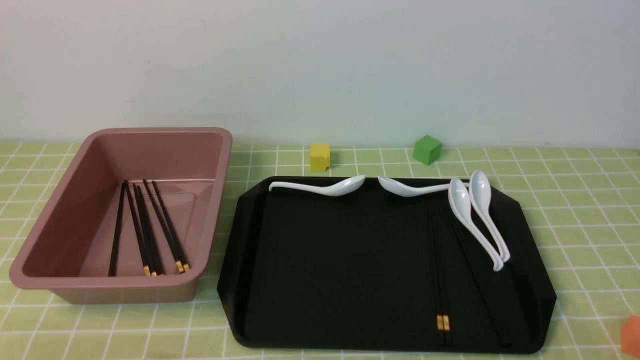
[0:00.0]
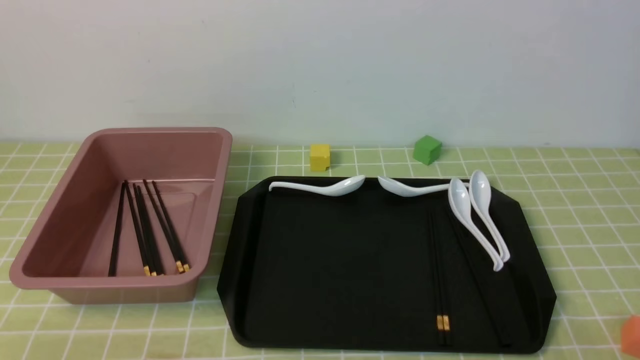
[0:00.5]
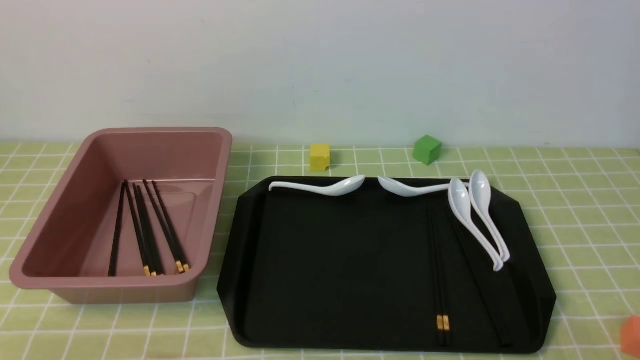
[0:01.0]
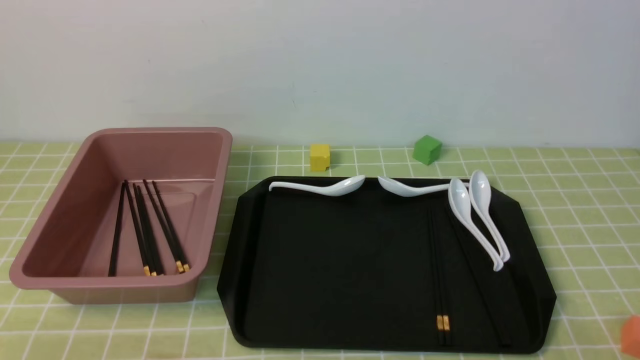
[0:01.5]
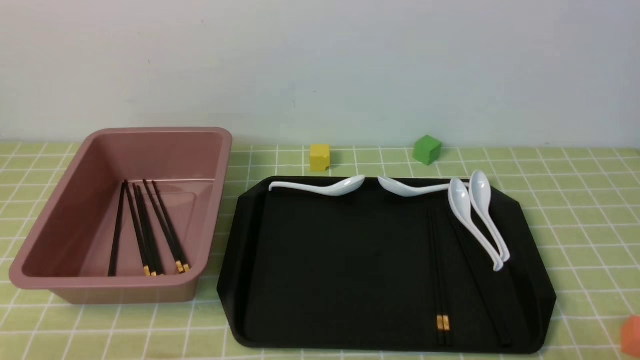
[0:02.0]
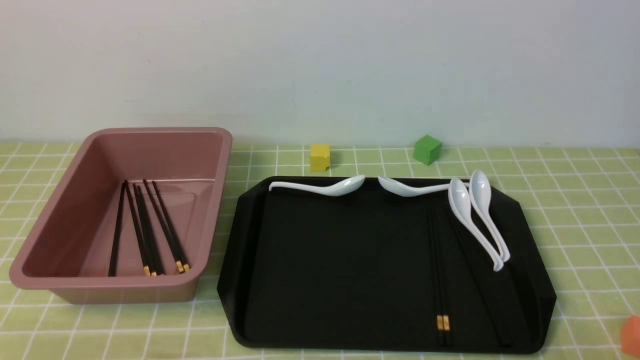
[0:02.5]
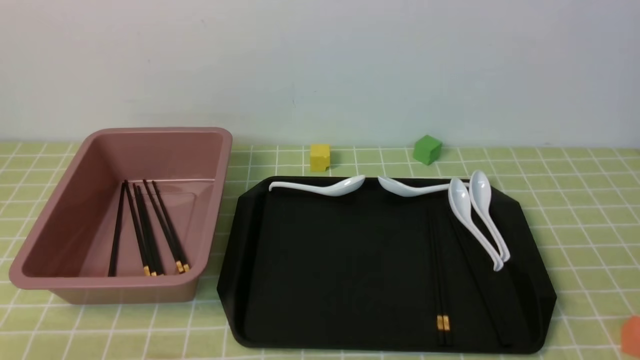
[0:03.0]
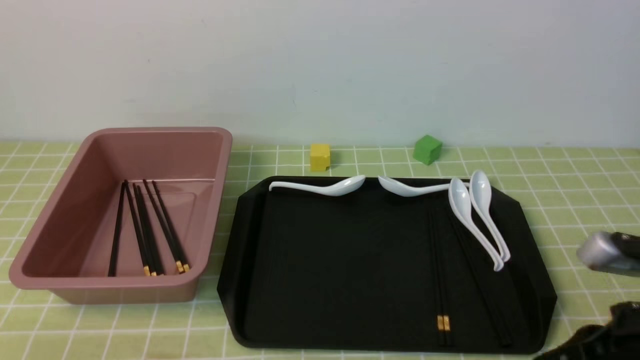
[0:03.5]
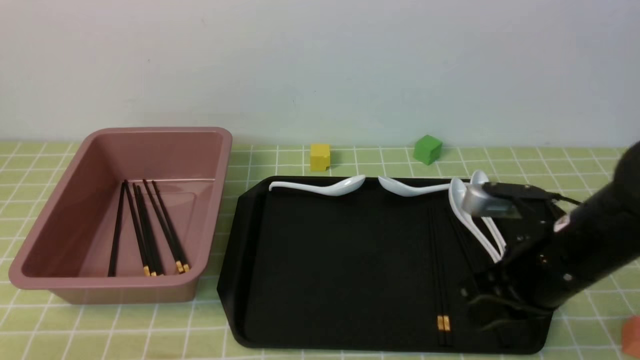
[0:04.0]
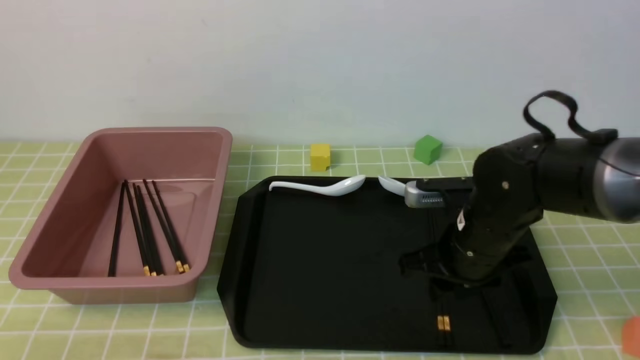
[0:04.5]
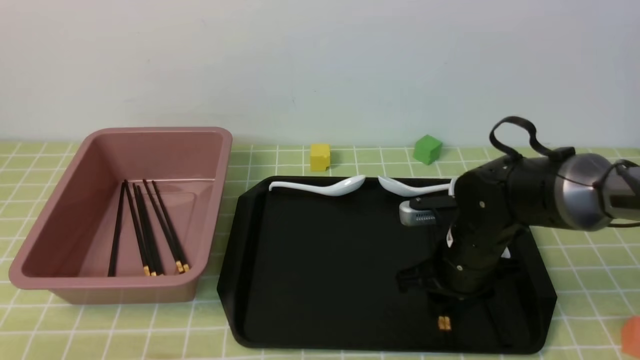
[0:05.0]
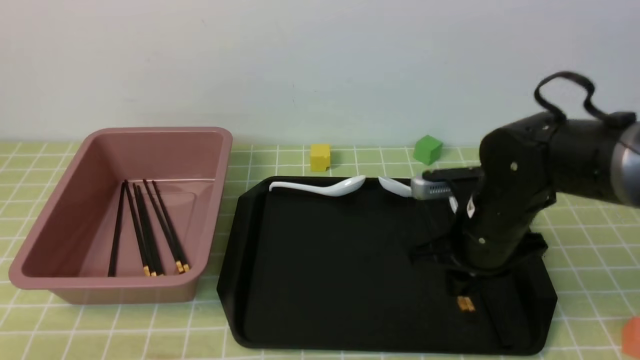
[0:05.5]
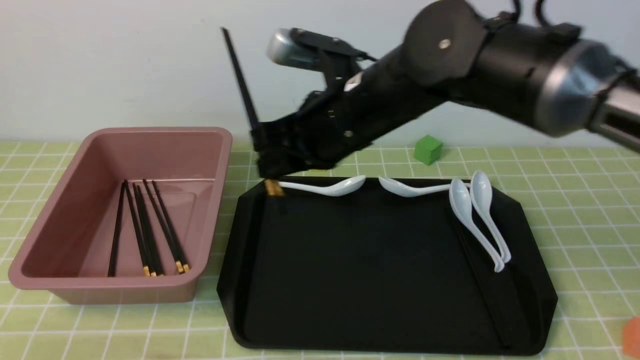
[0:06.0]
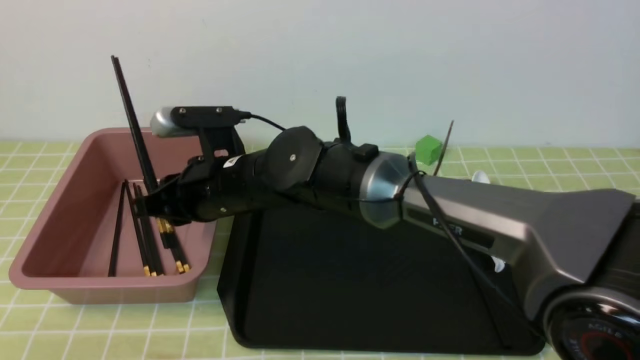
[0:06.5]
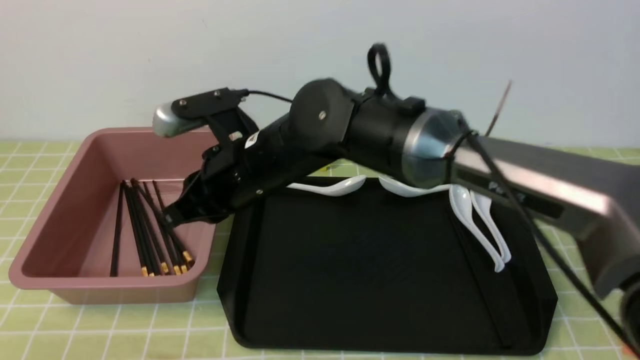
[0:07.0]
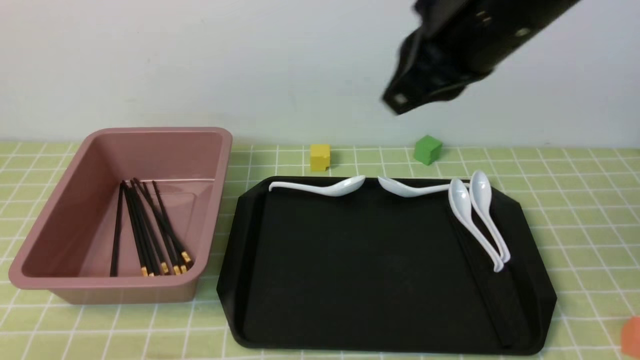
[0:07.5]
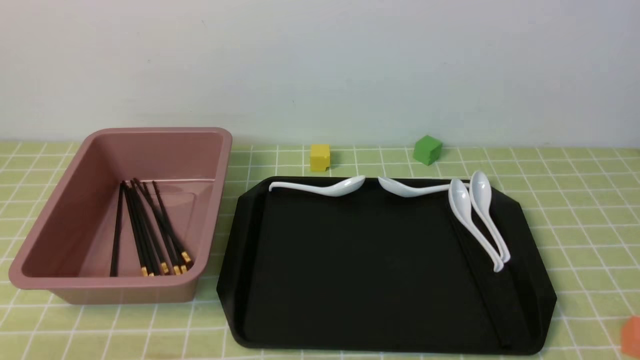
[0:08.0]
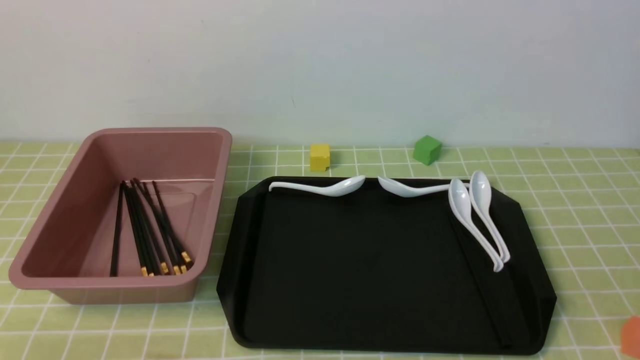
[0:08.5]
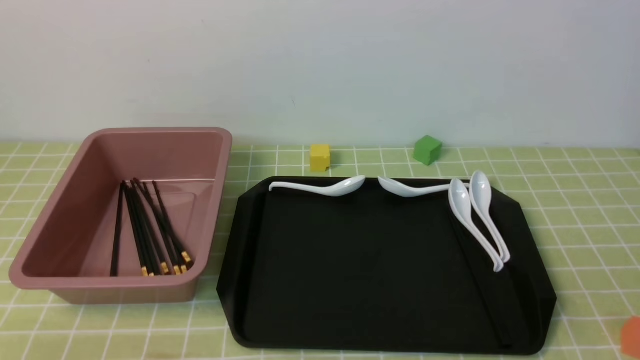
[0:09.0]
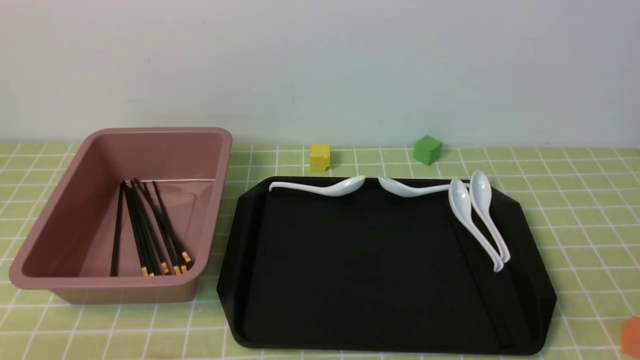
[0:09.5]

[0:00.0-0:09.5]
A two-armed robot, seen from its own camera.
Step, 0:00.0 to 0:05.5: use the right arm to grab a pair of chopsticks.
Step, 0:06.0 to 0:06.5: use the right arm to put the chopsticks into the lunch box.
0:02.0 to 0:04.0: The right gripper heads forward and to the left, covering about 25 cm, and closes.
0:04.0 to 0:05.5: The right gripper travels forward and to the left by about 10 cm, and opens.
0:05.5 to 0:07.5: The right gripper is displaced upward by about 20 cm, travels to the left and back again, roughly 20 cm each way, and closes its fingers.
0:07.5 to 0:09.5: The right gripper is displaced backward, downward and to the right by some 30 cm.

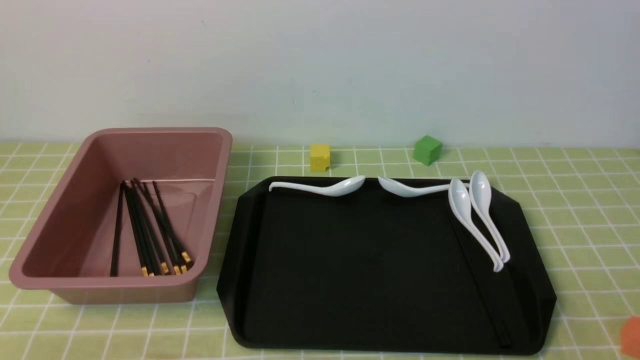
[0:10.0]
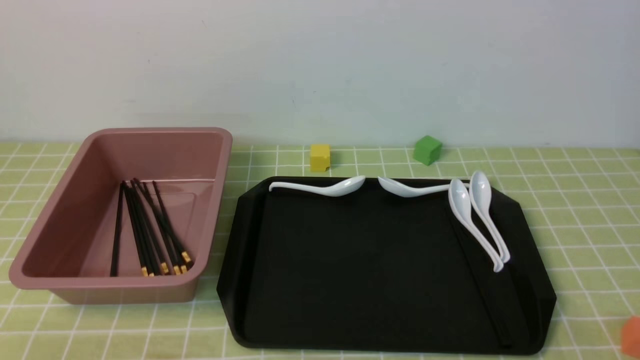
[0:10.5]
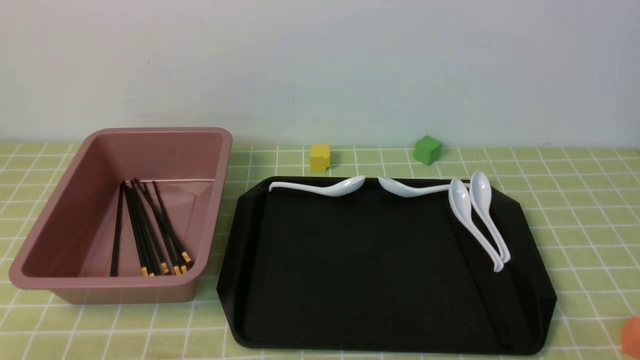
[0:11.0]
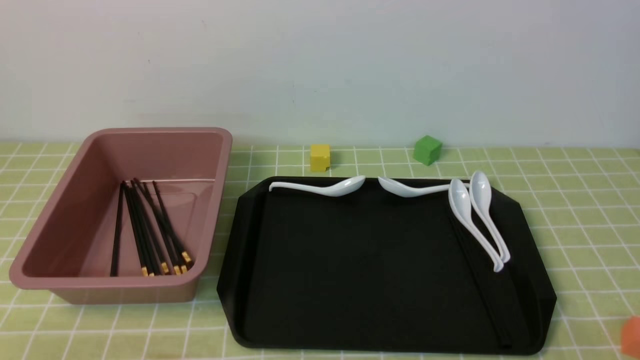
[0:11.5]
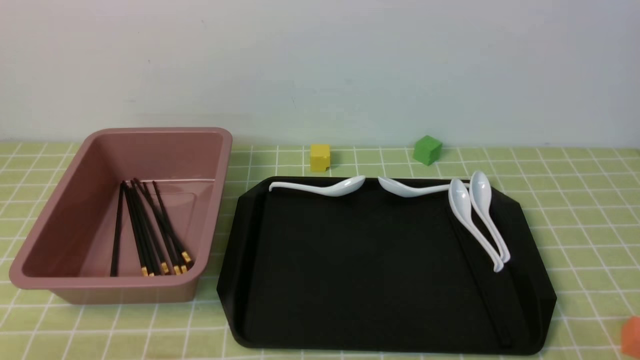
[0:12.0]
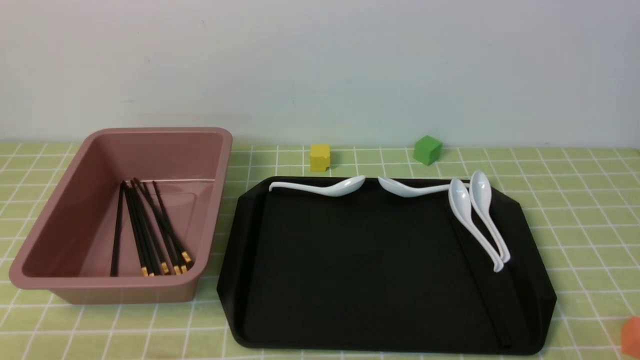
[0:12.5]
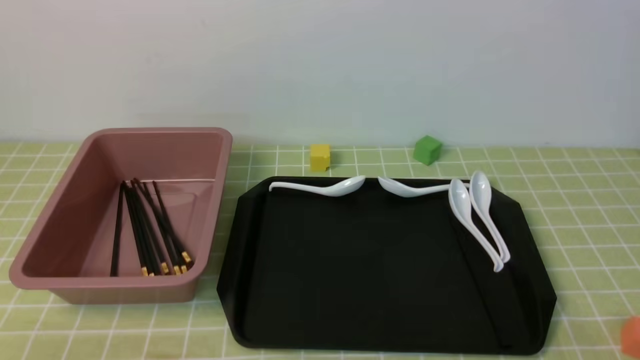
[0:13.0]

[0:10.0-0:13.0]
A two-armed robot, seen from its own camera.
0:11.5 to 0:13.0: Both grippers stay about where they are.

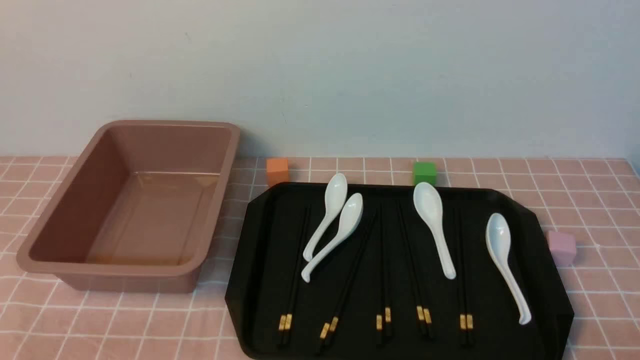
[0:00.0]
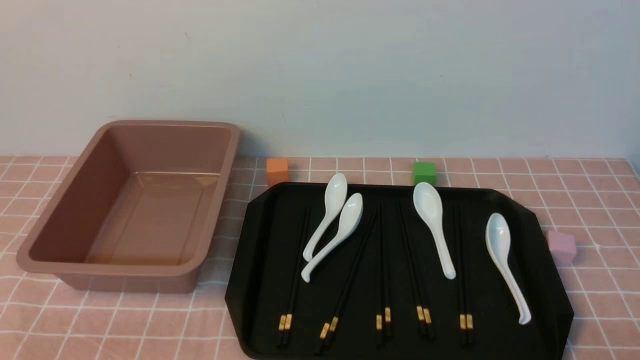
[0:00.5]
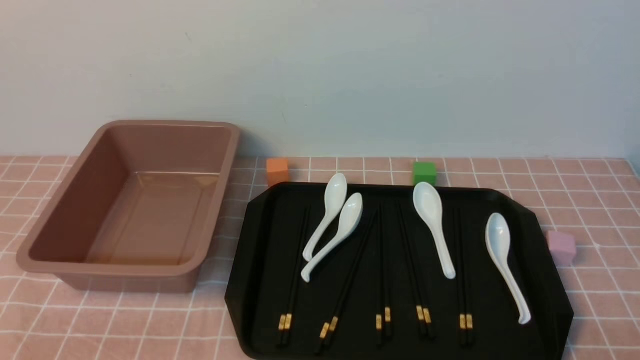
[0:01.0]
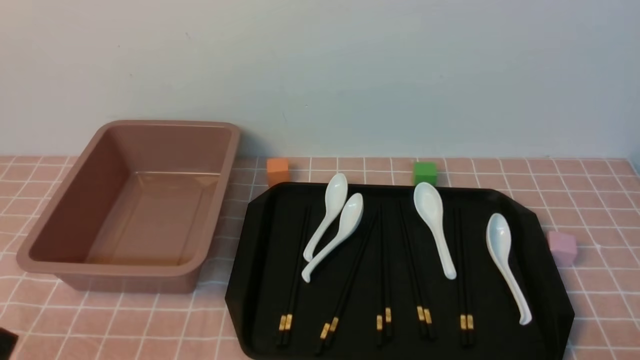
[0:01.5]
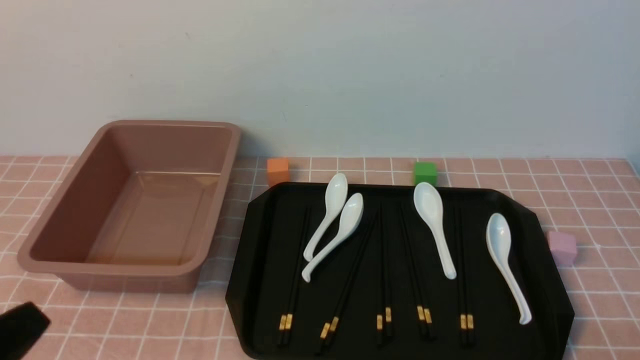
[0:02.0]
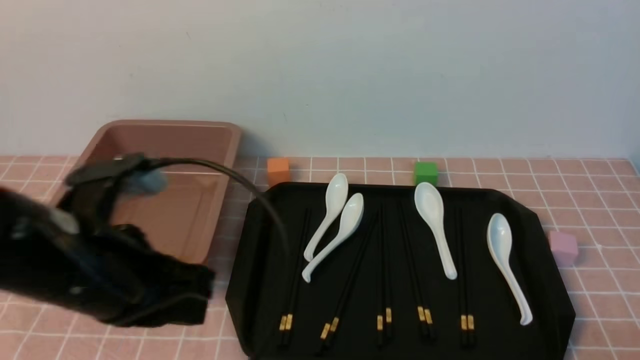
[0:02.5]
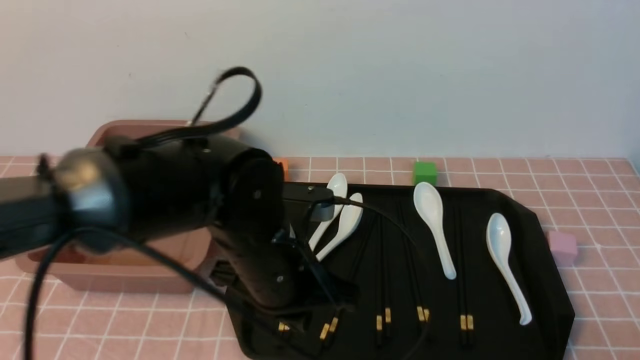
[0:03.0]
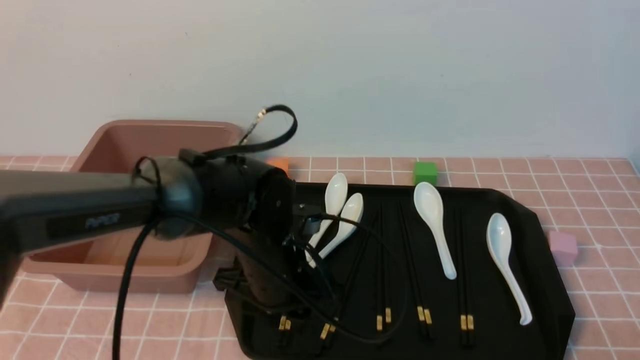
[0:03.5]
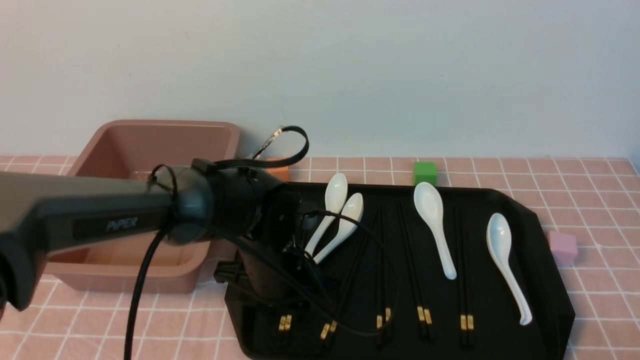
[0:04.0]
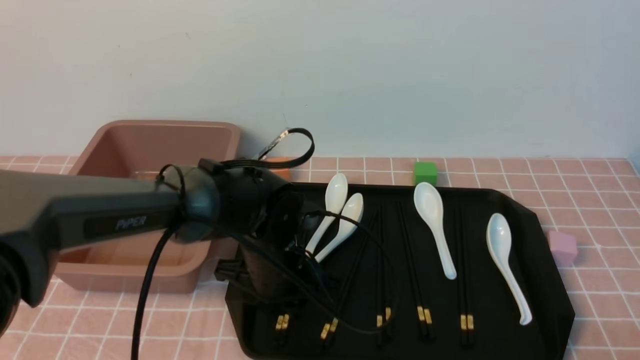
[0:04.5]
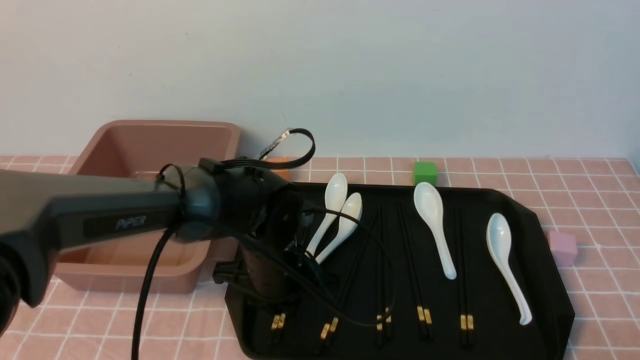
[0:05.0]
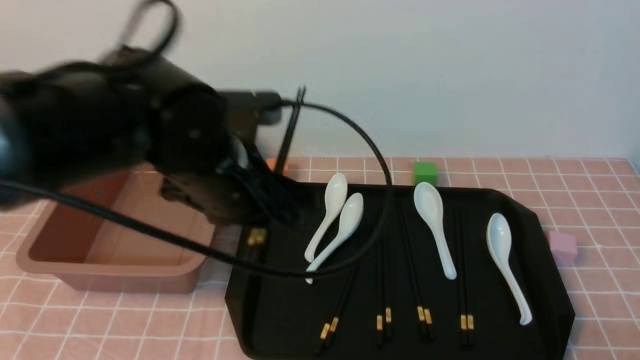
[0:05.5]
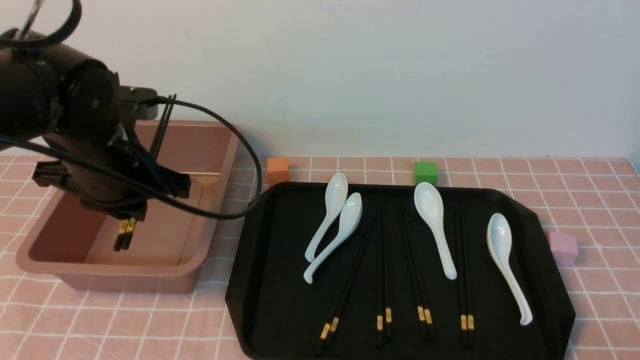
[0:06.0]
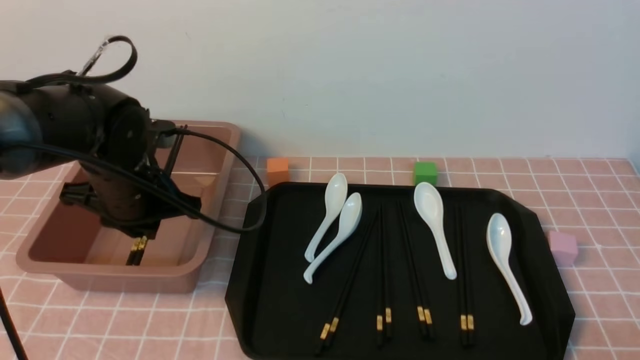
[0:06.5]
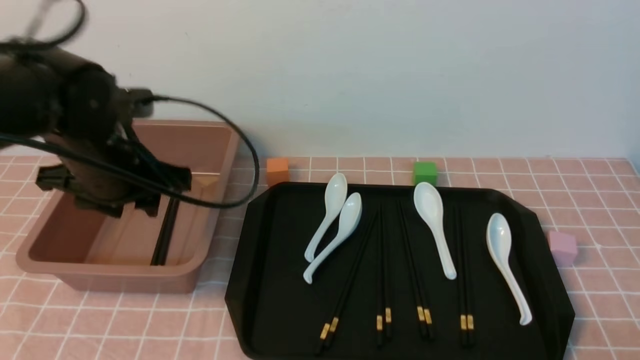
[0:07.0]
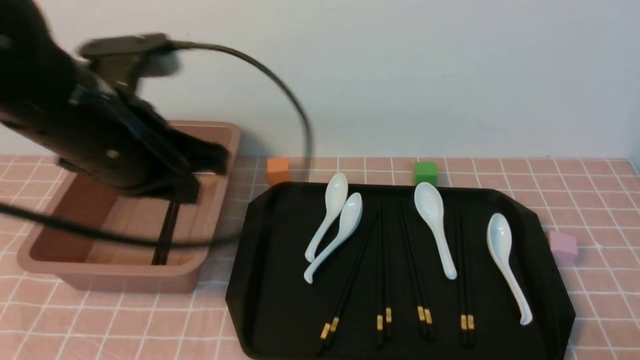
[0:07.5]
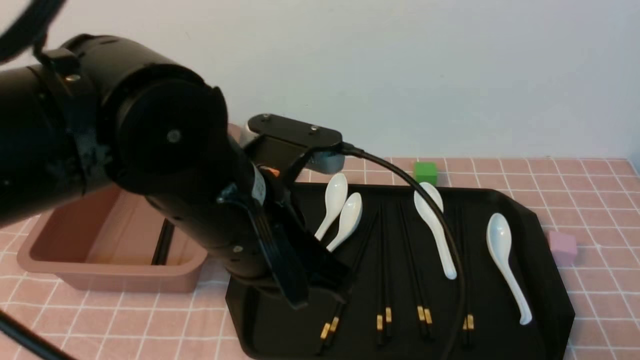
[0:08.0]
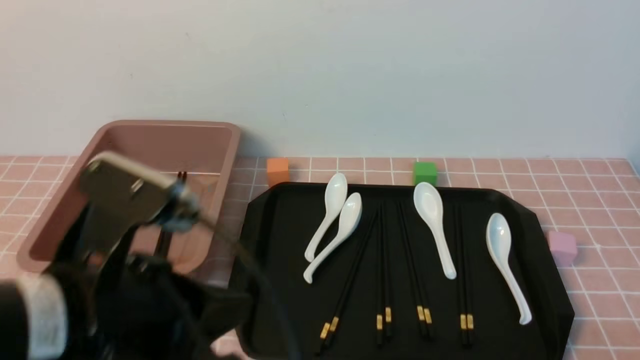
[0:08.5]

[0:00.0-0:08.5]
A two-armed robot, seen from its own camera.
Step, 0:00.0 to 0:05.0: use the left arm to grab a pair of chopsticks.
Step, 0:06.0 to 0:07.0: use the left arm to put the chopsticks into the lunch box.
0:00.0 to 0:02.0: The left gripper heads upward, covering roughly 10 cm, and closes up.
0:02.0 to 0:04.0: The left gripper is displaced forward, to the right and downward by approximately 35 cm, and opens.
0:04.0 to 0:06.5: The left gripper goes about 15 cm to the left and upward, and closes up.
0:06.5 to 0:08.5: The left gripper moves backward, some 20 cm, and closes its fingers.
